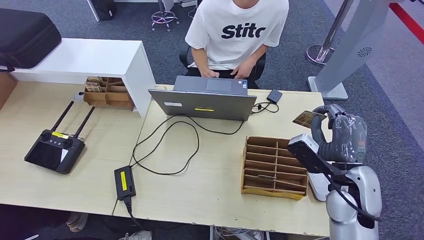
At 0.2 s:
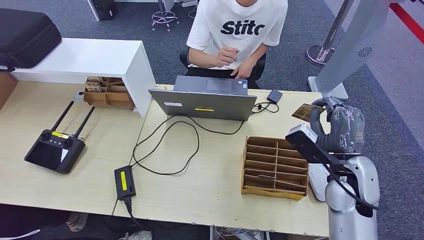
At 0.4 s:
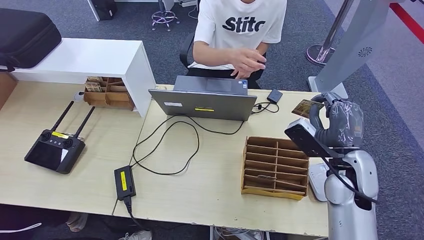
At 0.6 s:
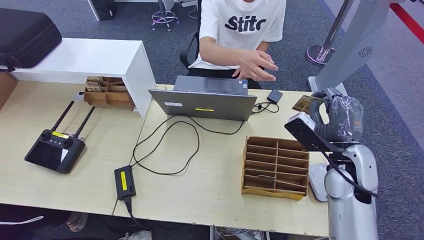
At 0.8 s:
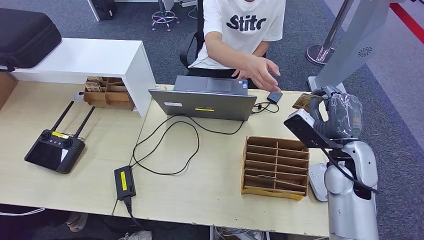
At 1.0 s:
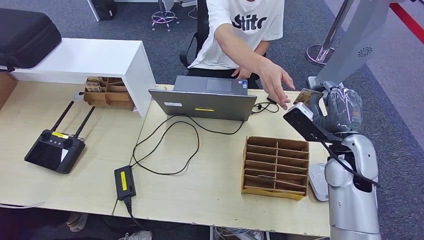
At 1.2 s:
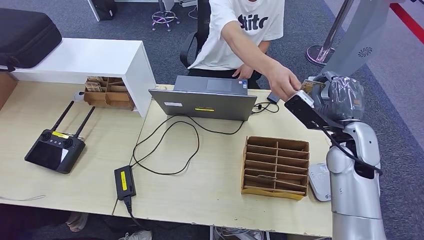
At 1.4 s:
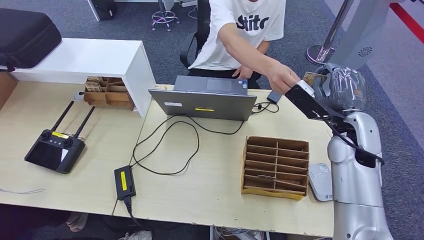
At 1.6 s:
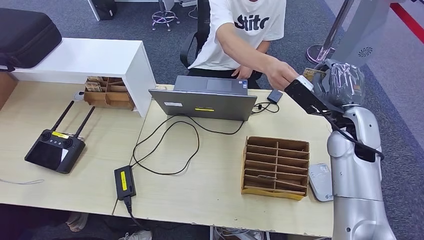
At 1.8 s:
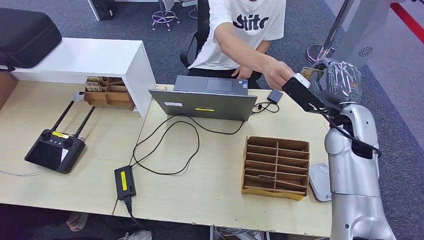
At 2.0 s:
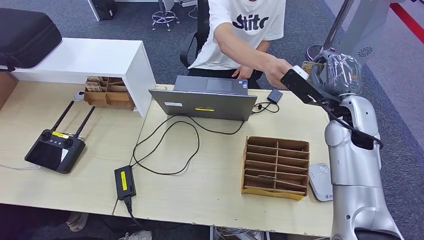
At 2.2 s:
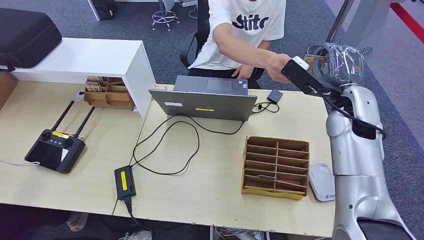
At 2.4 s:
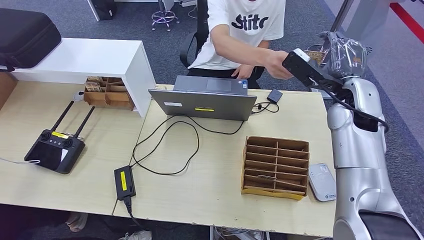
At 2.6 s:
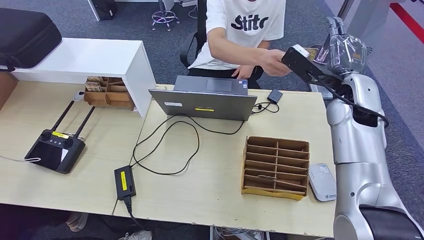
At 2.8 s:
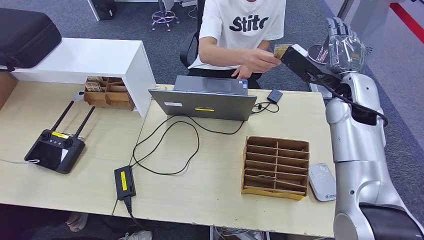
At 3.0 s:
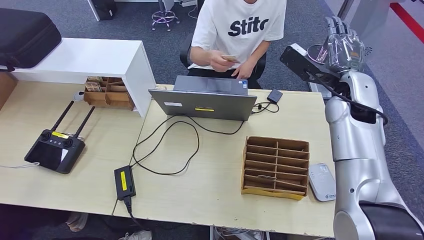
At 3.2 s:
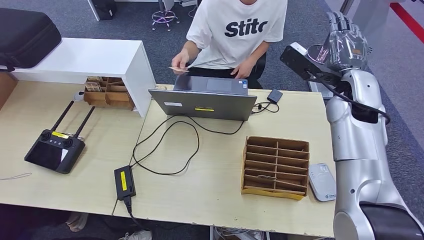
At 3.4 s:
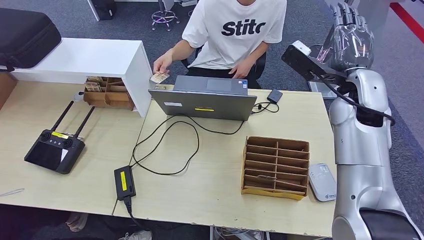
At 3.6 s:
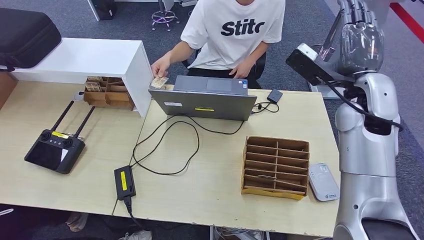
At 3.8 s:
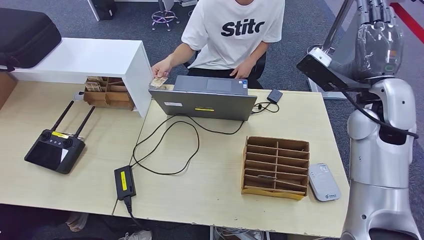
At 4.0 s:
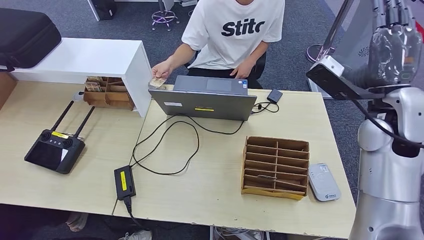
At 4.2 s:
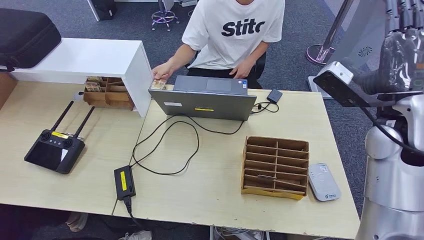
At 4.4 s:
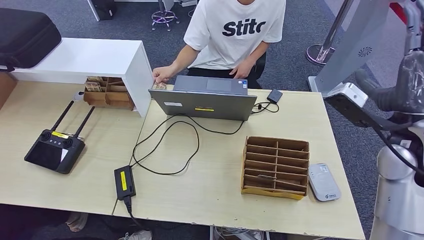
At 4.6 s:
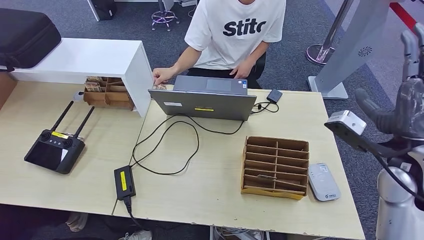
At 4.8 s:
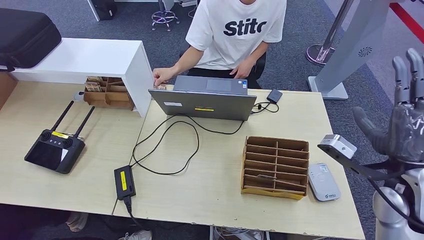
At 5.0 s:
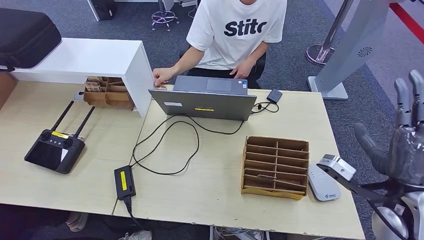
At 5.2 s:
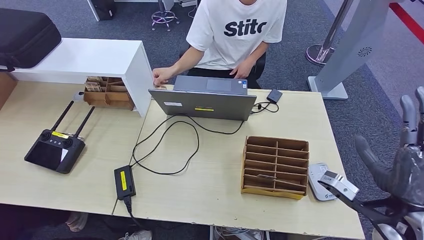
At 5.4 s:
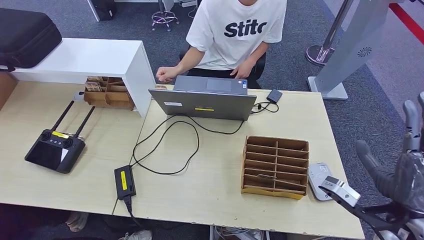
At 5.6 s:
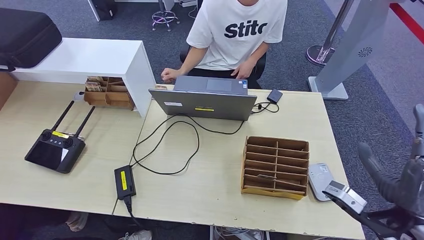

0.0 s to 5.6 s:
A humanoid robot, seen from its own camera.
Step, 0.0 to 5.6 s: Hand the room key to the person.
0.0 to 1.4 s: The right hand heads forward and upward, covering roughly 10 cm.
1.4 to 2.8 s: The right hand goes approximately 10 cm forward and upward.
4.2 to 5.6 s: The right hand is displaced backward and downward by roughly 20 cm.
